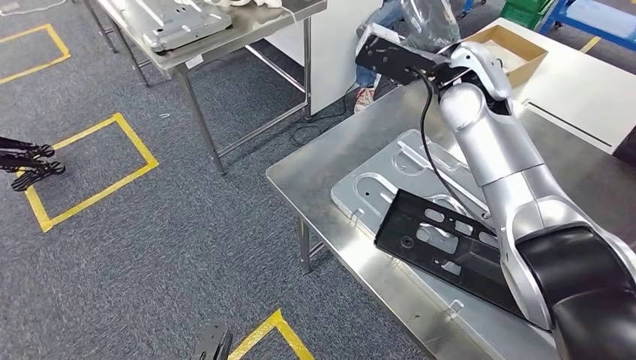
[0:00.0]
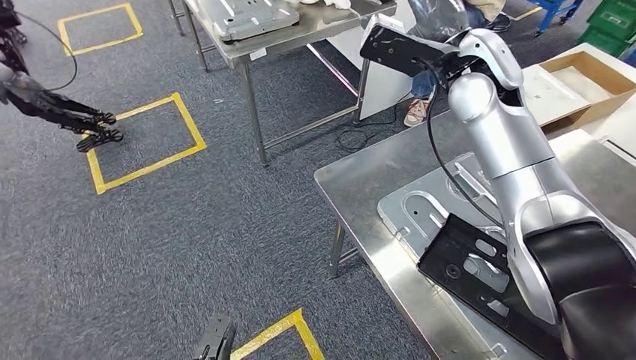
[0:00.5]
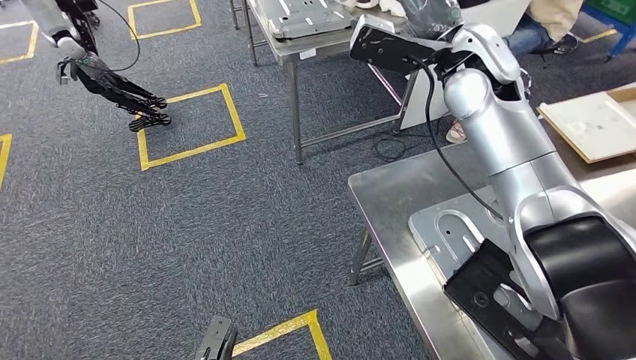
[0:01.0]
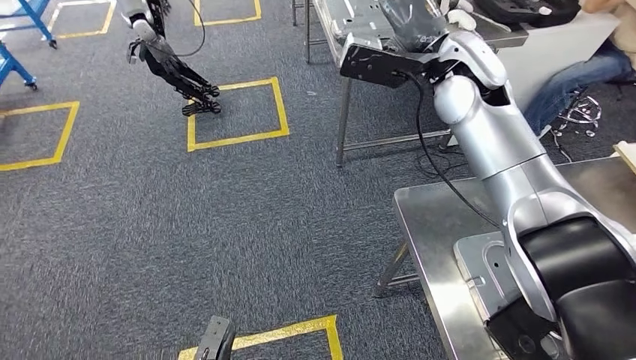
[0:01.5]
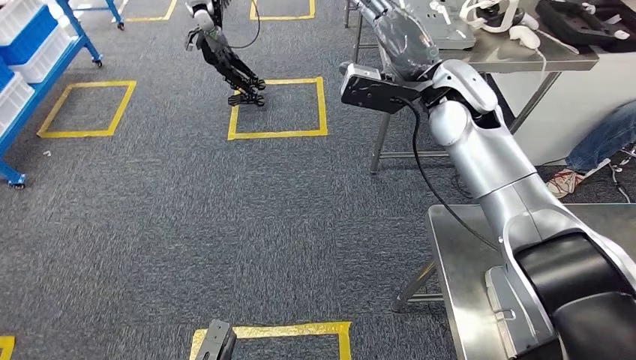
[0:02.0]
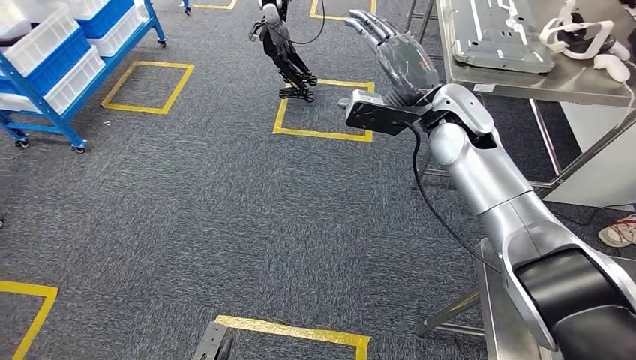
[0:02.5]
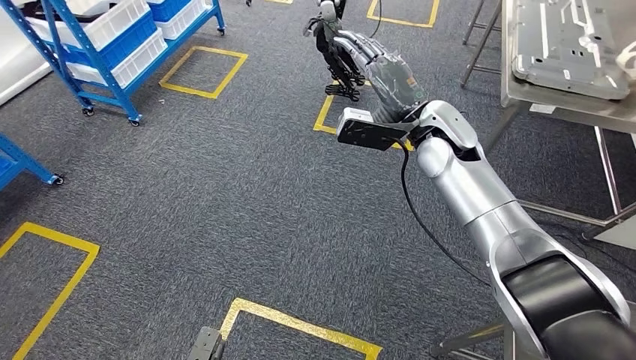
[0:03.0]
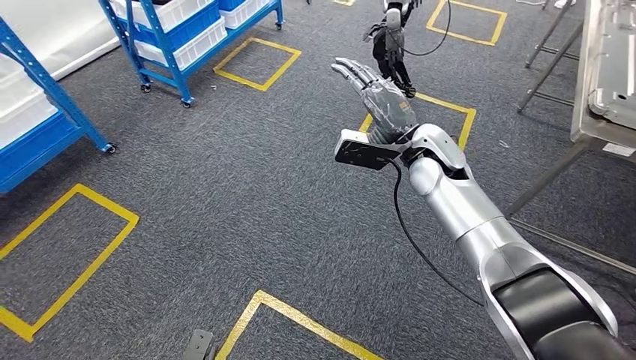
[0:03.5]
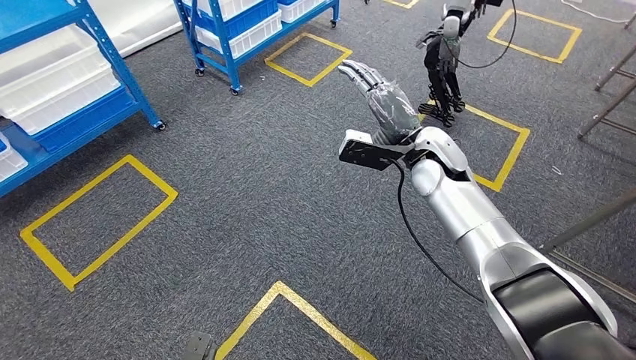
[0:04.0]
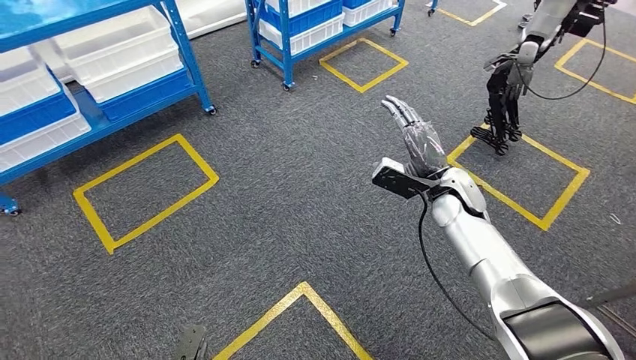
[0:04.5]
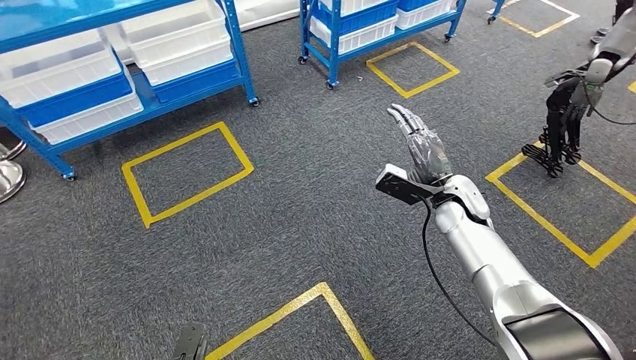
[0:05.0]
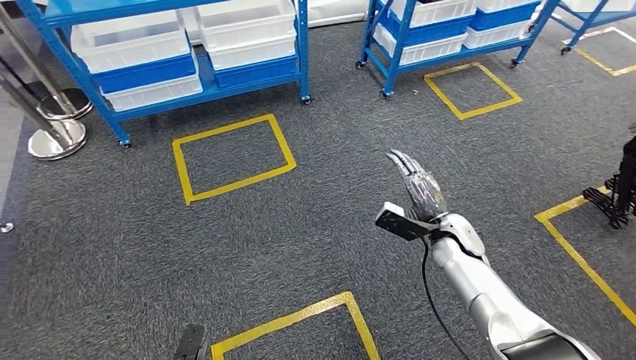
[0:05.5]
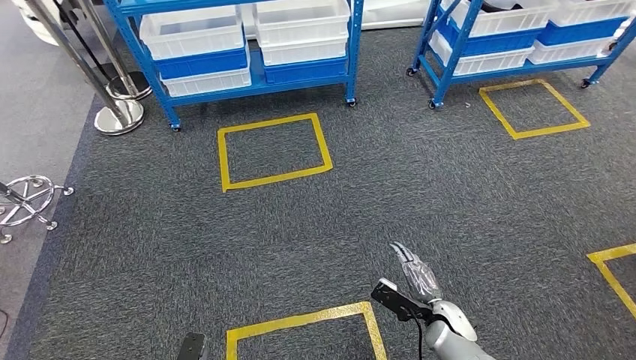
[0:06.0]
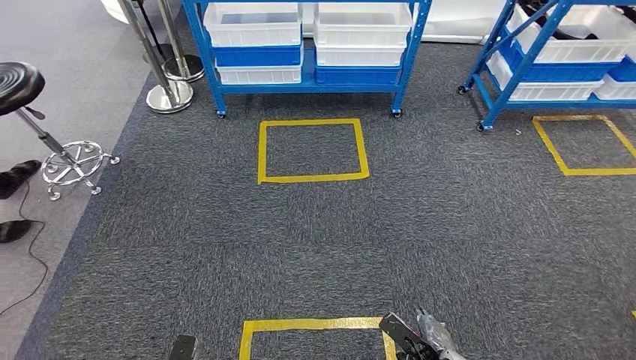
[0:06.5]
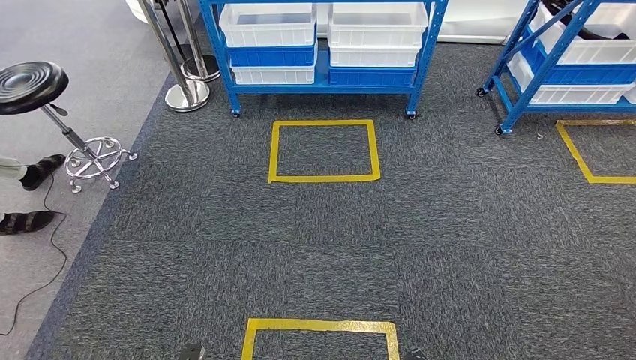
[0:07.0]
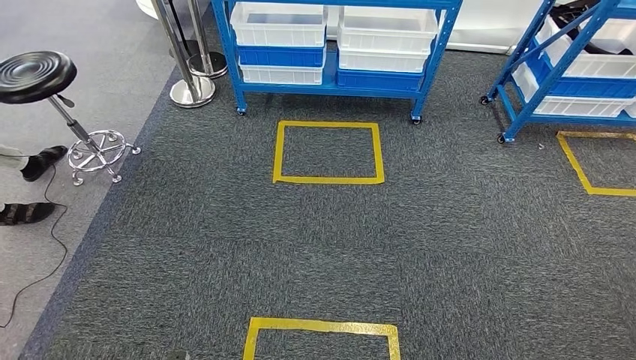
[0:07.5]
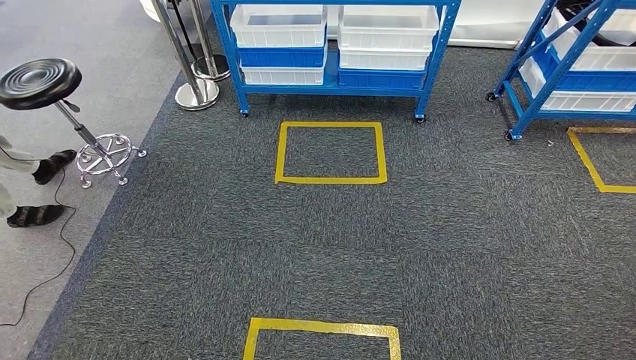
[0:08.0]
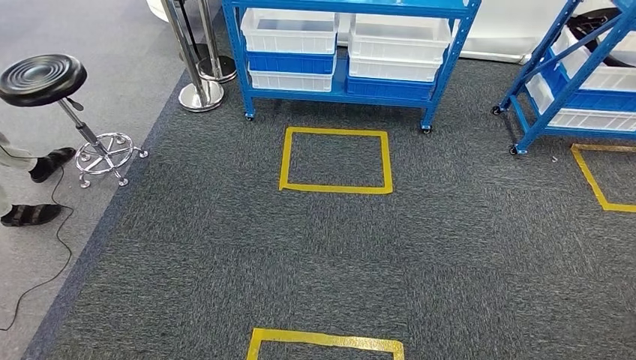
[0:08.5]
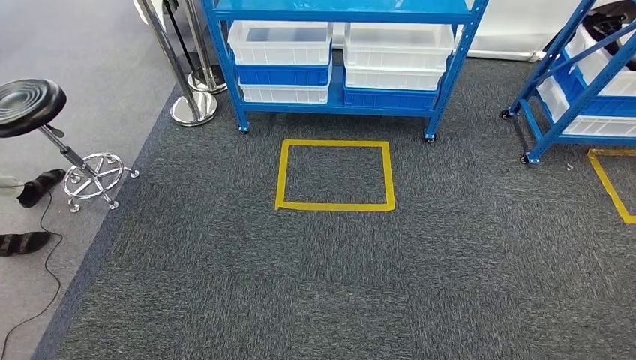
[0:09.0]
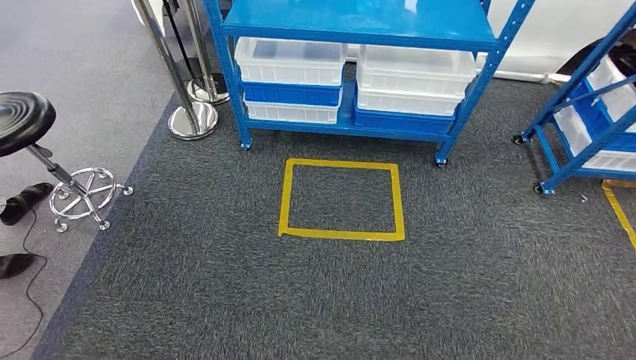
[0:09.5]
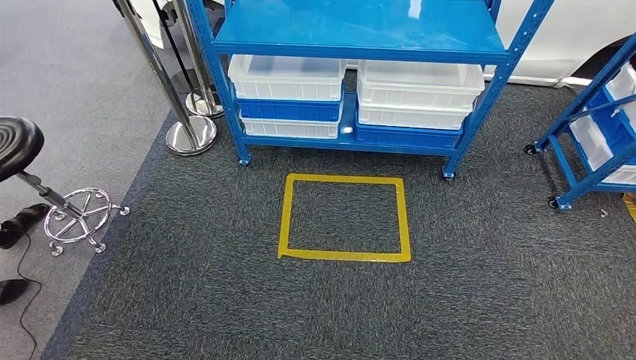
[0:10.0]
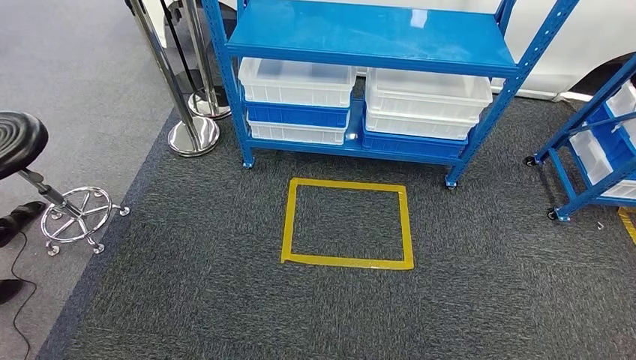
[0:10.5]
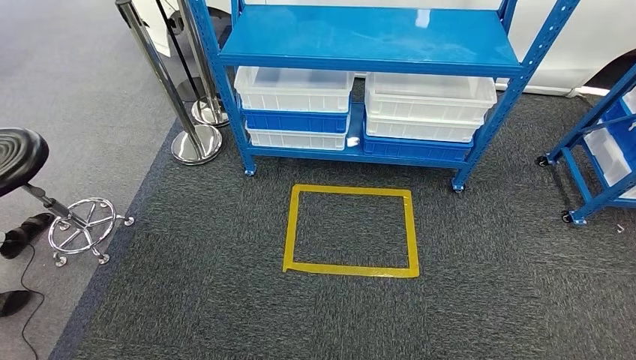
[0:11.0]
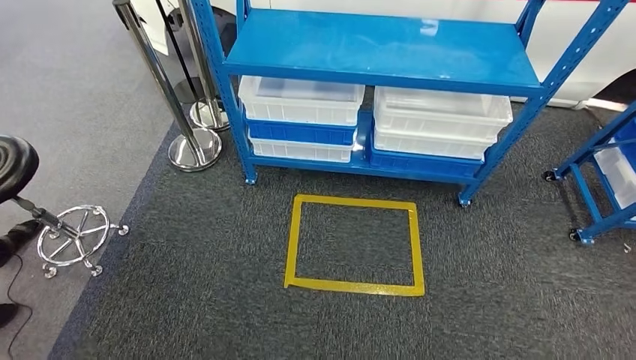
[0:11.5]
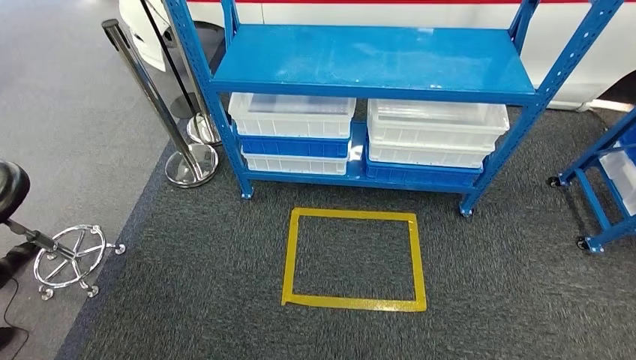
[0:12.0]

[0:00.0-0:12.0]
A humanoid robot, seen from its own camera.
Step, 0:00.0 to 0:08.5: Move to the initial position of the shelf.
